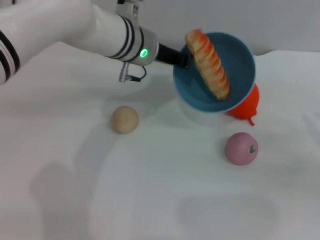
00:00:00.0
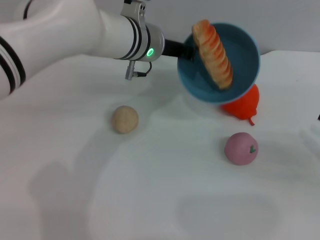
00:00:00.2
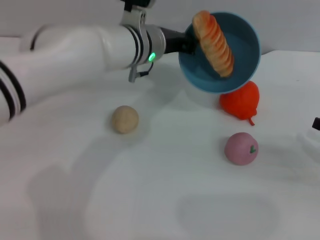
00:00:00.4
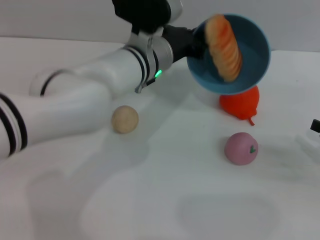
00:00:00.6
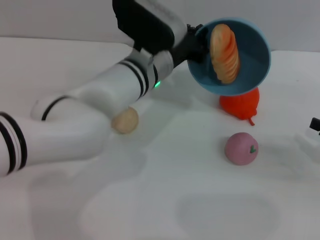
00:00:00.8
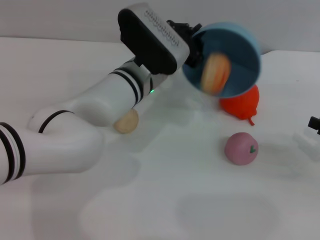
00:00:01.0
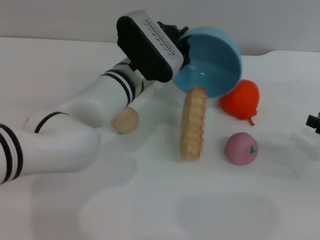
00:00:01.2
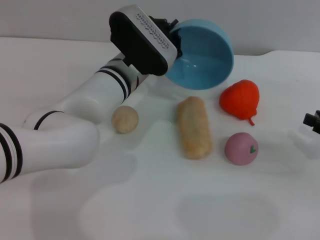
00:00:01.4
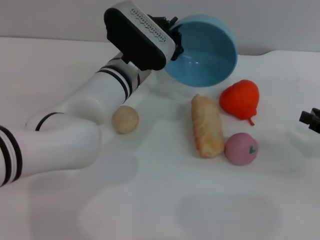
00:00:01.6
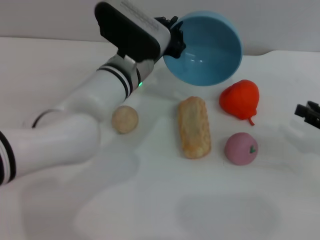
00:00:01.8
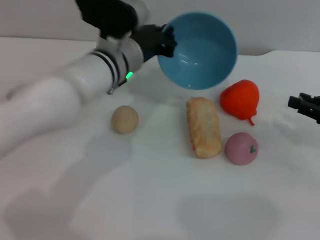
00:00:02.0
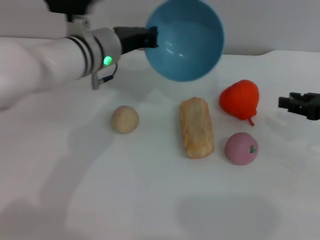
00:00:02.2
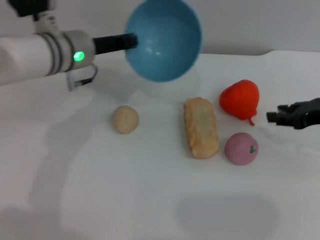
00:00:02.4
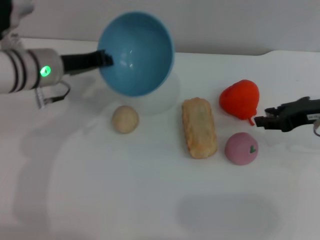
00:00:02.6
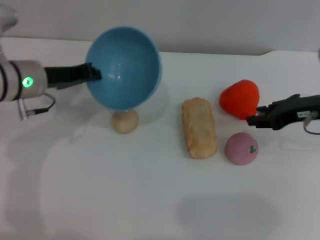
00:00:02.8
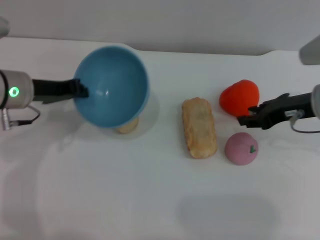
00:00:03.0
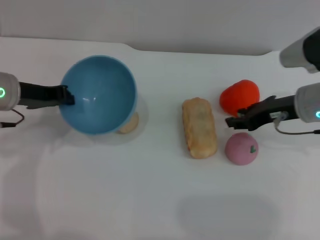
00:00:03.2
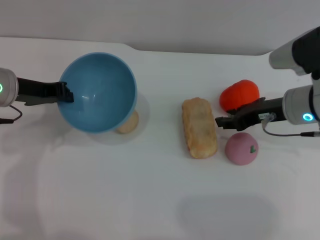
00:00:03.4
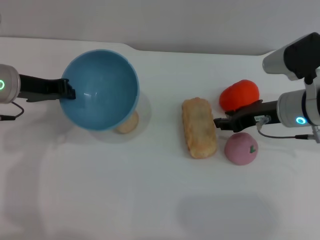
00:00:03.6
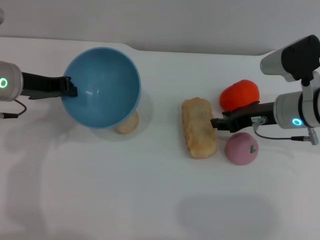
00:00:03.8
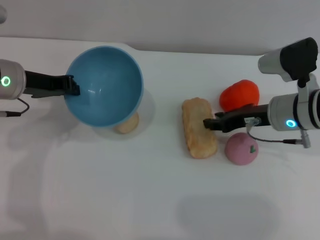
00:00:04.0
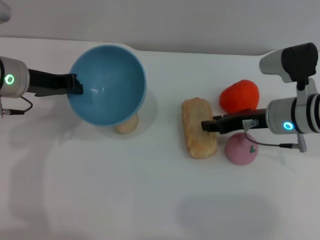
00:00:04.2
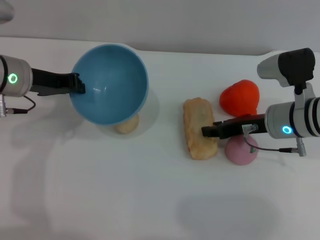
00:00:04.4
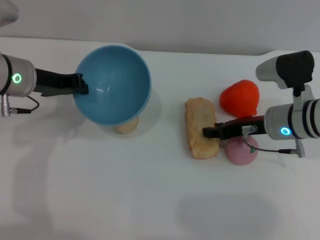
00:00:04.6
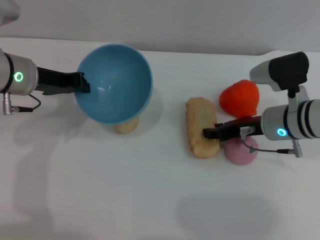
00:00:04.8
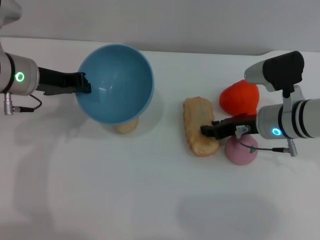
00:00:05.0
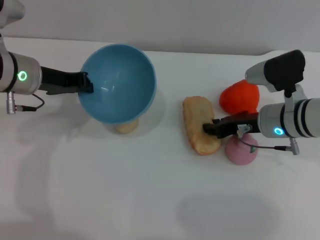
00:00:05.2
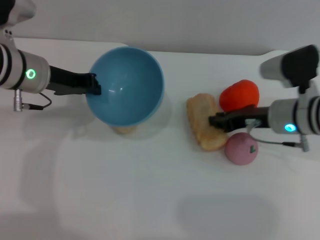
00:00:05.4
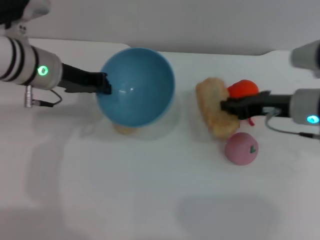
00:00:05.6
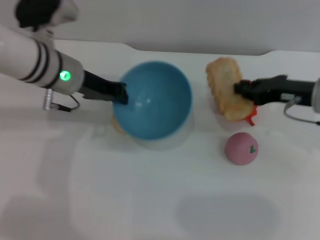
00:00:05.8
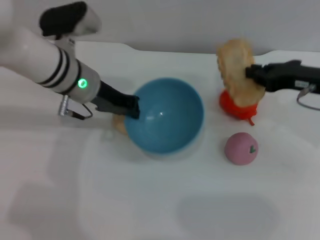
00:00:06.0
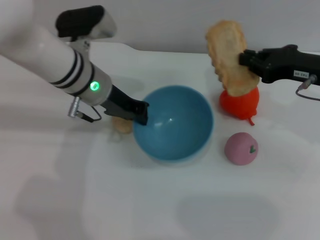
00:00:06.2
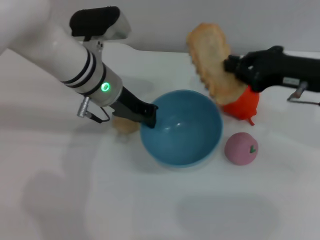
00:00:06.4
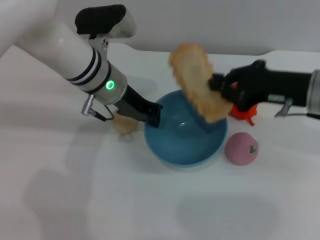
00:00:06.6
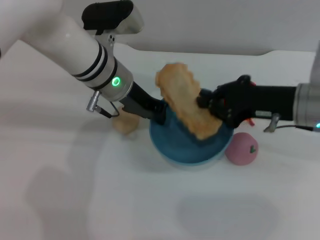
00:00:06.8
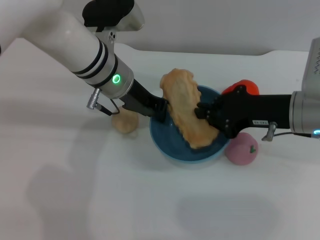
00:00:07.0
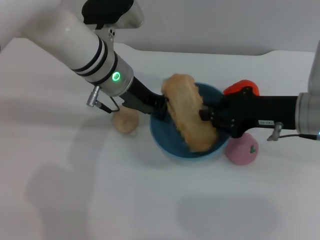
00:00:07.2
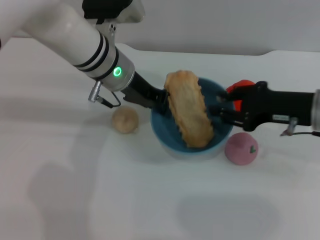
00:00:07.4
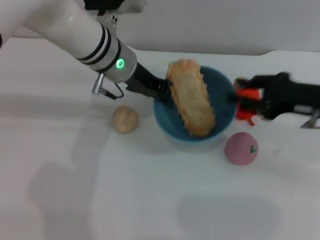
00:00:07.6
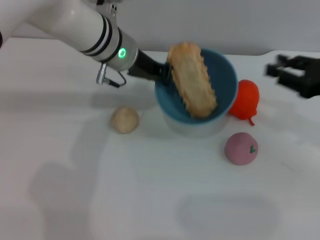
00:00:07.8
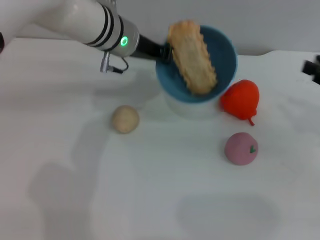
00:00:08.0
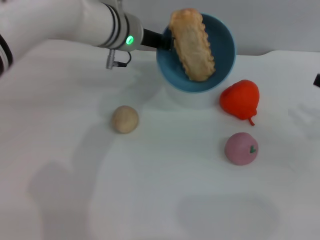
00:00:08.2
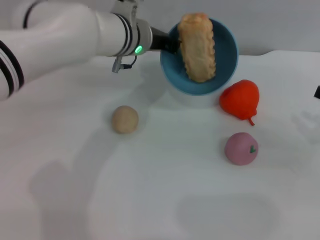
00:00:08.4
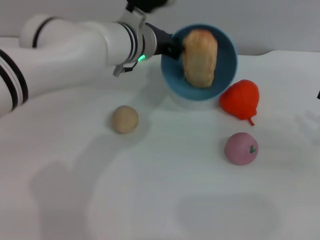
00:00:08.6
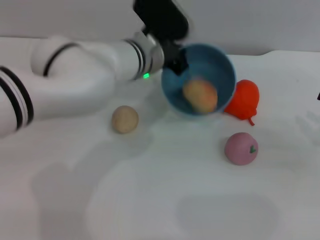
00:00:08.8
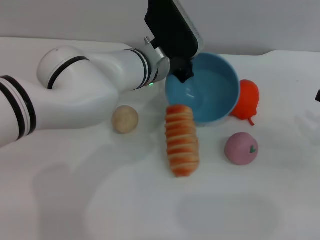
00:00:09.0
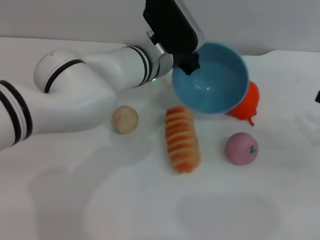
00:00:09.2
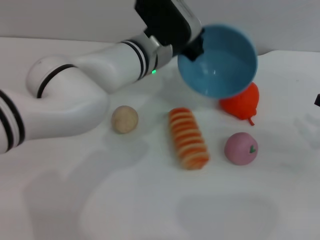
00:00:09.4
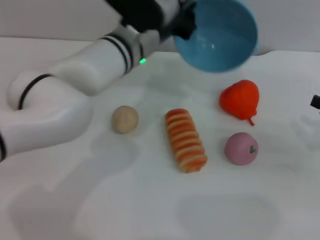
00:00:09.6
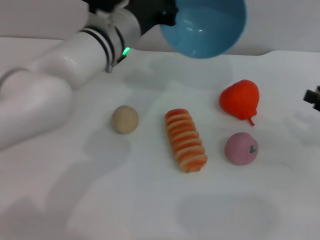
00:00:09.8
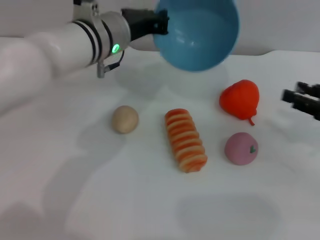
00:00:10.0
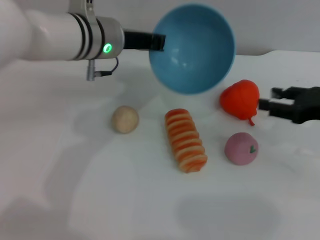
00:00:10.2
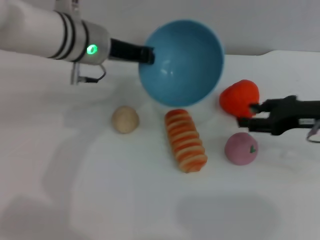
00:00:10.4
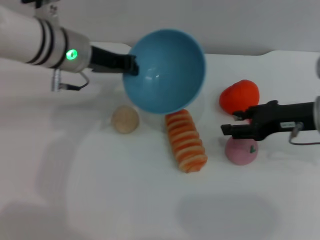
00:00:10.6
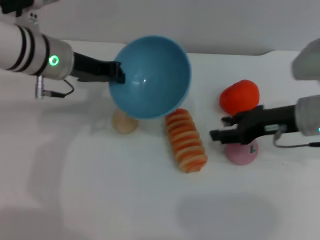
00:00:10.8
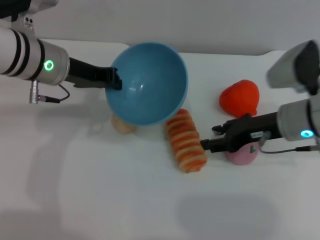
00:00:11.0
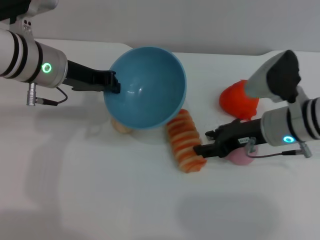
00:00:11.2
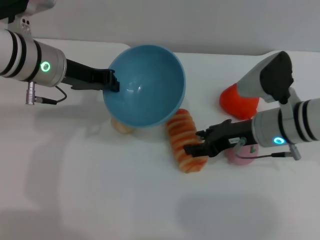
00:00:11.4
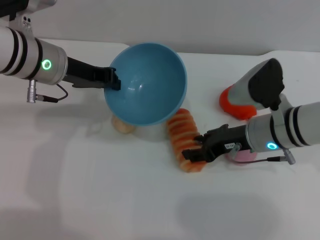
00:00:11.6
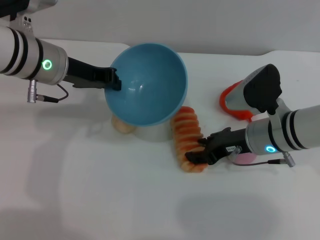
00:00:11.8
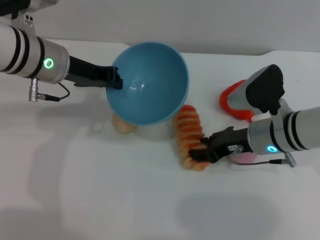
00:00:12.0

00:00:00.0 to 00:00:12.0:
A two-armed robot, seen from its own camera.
Task of the whole recording: put the bread into the blue bowl and pour it out repeatedly.
Step, 00:00:00.0 to 00:00:01.8: Pour the bread out of the bowl.
Step, 00:00:02.0 to 00:00:06.0: Pick up the bread with the right gripper.
Step, 00:00:06.2 to 00:00:07.8: Place the bread into the bowl.
Step, 00:00:08.2 to 00:00:09.4: Pour the bread out of the bowl.
00:00:00.0 to 00:00:01.6: The left gripper moves downward, roughly 5 cm.
00:00:01.6 to 00:00:03.0: The left gripper goes approximately 15 cm to the left; the right gripper heads to the left, forward and upward, covering some 15 cm.
00:00:03.0 to 00:00:04.4: The right gripper shifts approximately 5 cm downward and to the left.
00:00:04.4 to 00:00:06.0: The left gripper heads to the right, covering some 10 cm. Meanwhile the right gripper goes about 10 cm to the right and upward.
00:00:06.0 to 00:00:07.6: The right gripper opens its fingers, while the left gripper moves to the right, some 5 cm.
00:00:07.6 to 00:00:09.0: The right gripper goes roughly 10 cm to the right. The left gripper moves to the right, approximately 5 cm.
00:00:09.0 to 00:00:10.4: The right gripper is displaced to the left and forward by roughly 10 cm. The left gripper goes some 10 cm to the left and upward.
00:00:10.4 to 00:00:12.0: The left gripper is displaced to the left by about 5 cm, while the right gripper heads to the left and downward, covering roughly 15 cm.

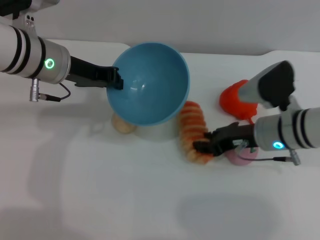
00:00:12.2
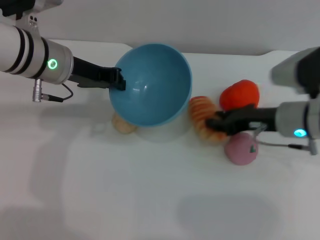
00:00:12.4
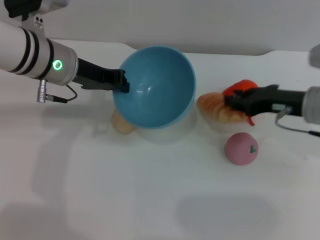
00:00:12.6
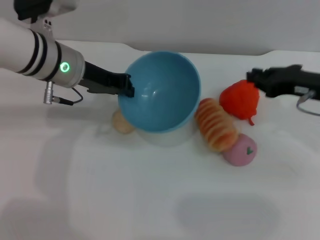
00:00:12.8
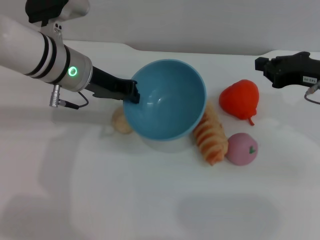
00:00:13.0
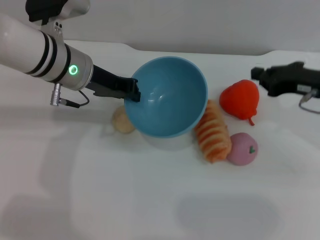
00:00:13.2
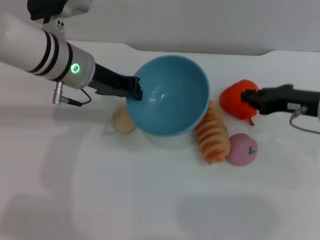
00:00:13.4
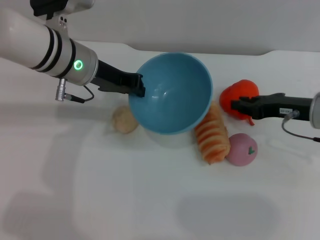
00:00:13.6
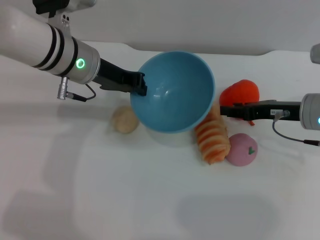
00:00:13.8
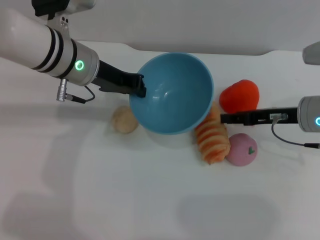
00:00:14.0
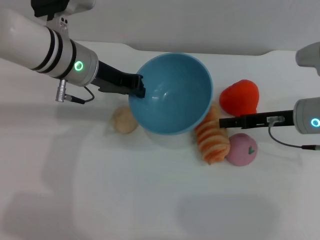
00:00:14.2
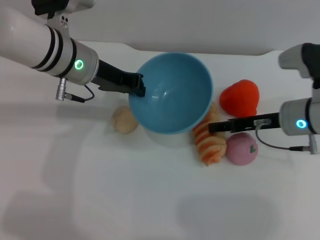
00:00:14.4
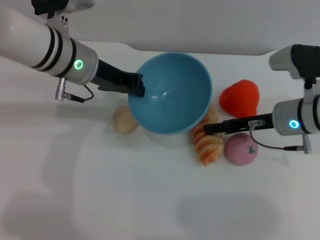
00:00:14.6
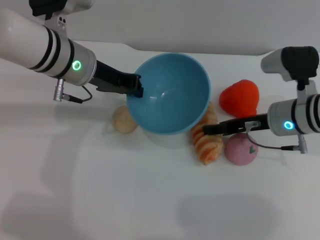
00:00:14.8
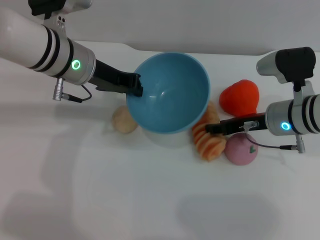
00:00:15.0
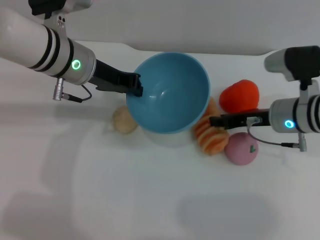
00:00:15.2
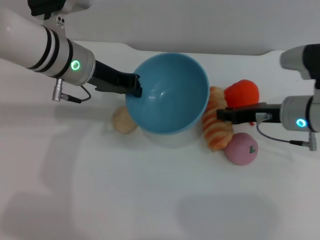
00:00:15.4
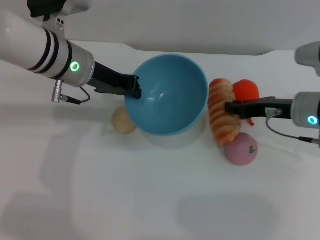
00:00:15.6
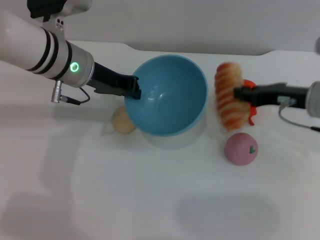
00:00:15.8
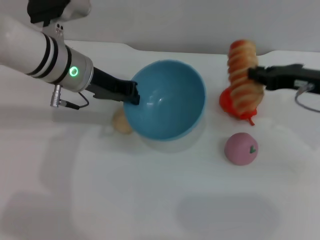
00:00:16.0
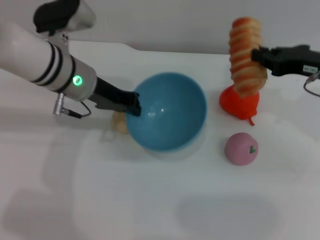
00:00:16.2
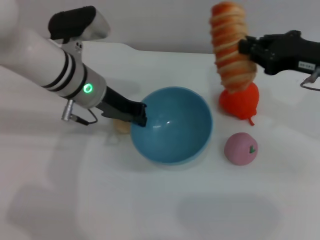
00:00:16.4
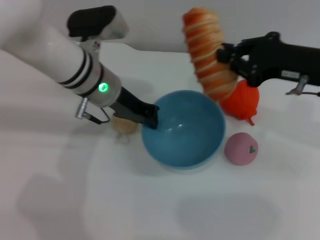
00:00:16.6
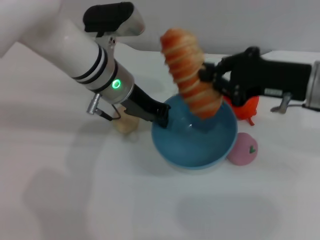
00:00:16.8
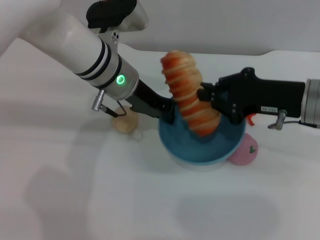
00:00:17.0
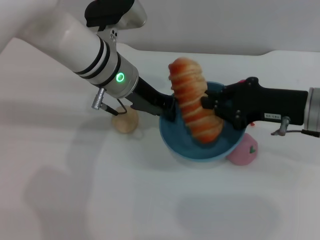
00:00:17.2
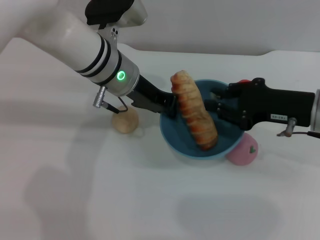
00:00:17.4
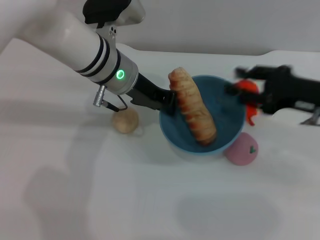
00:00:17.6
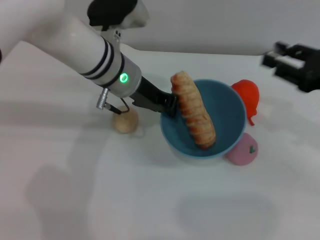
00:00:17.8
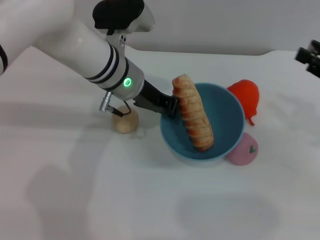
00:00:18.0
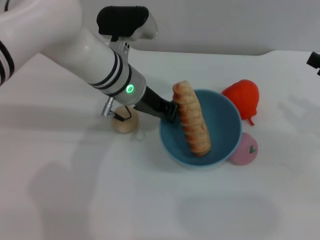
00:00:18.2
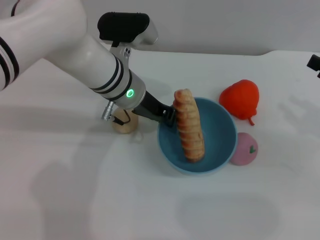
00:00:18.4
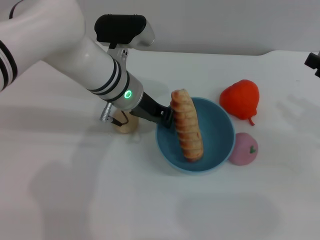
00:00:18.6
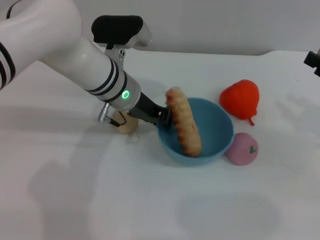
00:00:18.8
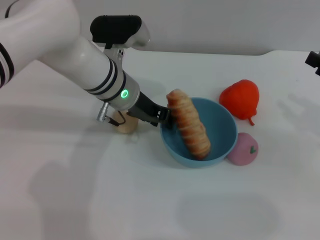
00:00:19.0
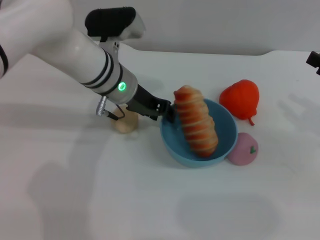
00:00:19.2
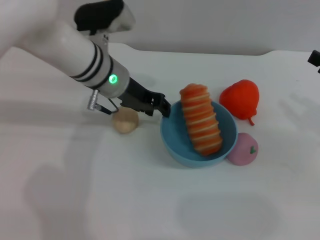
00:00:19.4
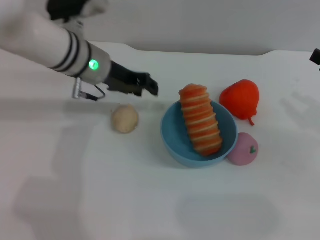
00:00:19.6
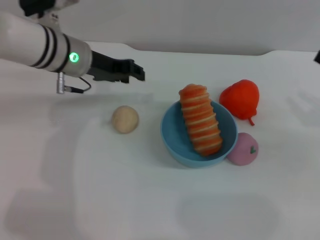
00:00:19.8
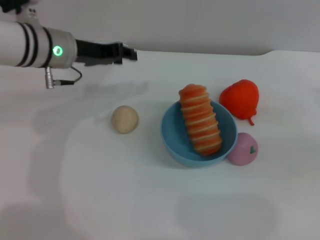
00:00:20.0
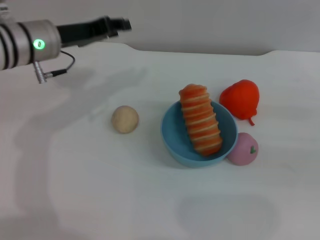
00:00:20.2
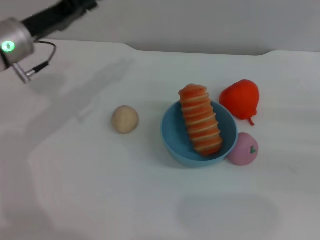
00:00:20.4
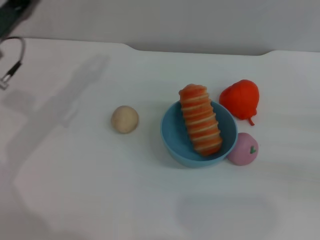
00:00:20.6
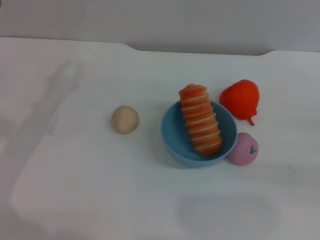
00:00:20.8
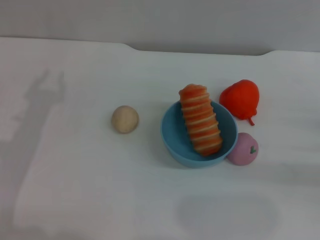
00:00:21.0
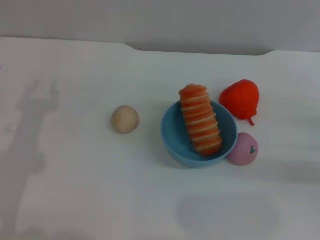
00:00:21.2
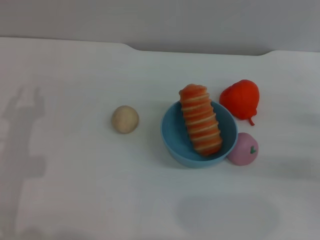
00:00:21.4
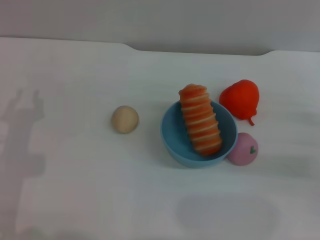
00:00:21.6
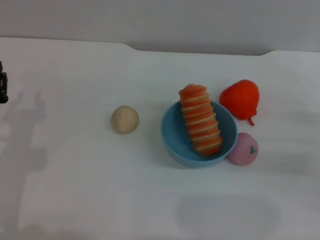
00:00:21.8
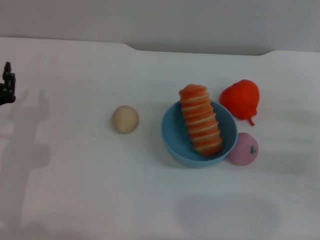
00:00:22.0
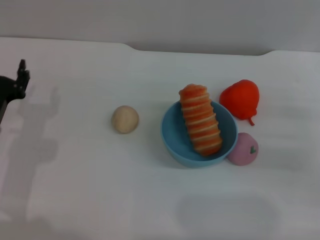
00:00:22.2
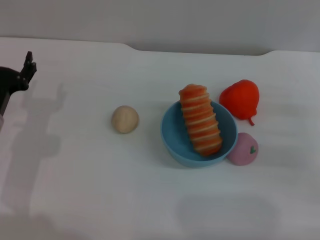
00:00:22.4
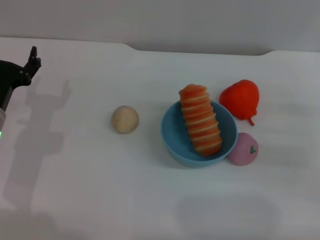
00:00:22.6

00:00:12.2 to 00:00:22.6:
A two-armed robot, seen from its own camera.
Task of the whole recording: put the bread into the blue bowl and pour it out repeatedly.
Step, 00:00:12.2 to 00:00:16.0: Pick up the bread with the right gripper.
Step, 00:00:16.2 to 00:00:17.6: Place the bread into the bowl.
Step, 00:00:17.8 to 00:00:19.6: Place the bowl on the table.
00:00:12.2 to 00:00:13.6: The right gripper heads to the right, covering roughly 5 cm, and closes up.
00:00:13.6 to 00:00:15.2: The right gripper ends up some 5 cm from where it was, and opens up.
00:00:15.2 to 00:00:16.6: The right gripper is displaced upward by about 10 cm, and closes its fingers.
00:00:16.6 to 00:00:18.2: The right gripper is displaced to the right and backward by about 15 cm, and opens up.
00:00:18.2 to 00:00:19.6: The left gripper shifts about 5 cm to the left, and opens.
00:00:19.6 to 00:00:21.2: The right gripper moves downward, approximately 5 cm; the left gripper shifts approximately 20 cm to the left, backward and downward.
00:00:21.2 to 00:00:22.6: The left gripper opens up.
